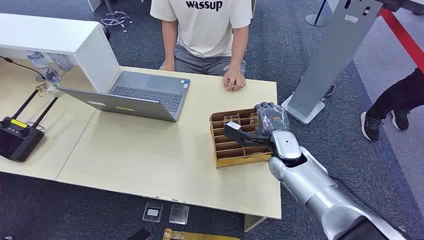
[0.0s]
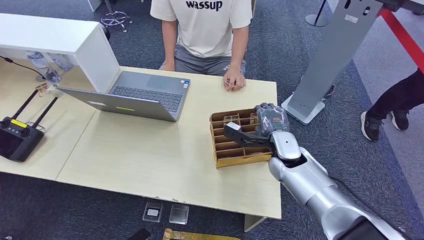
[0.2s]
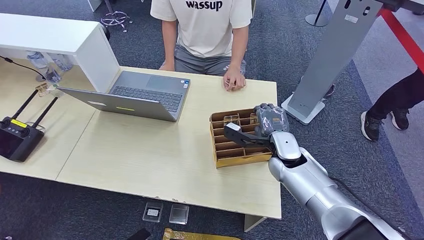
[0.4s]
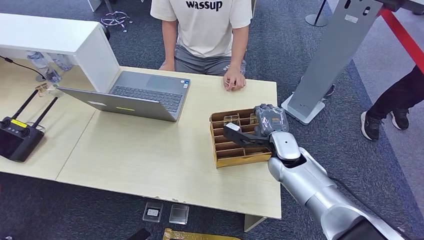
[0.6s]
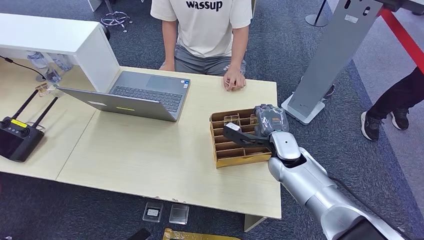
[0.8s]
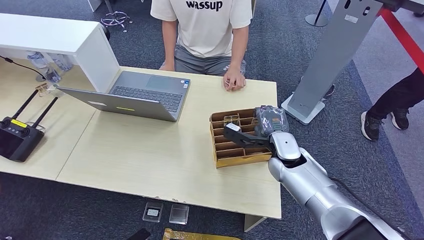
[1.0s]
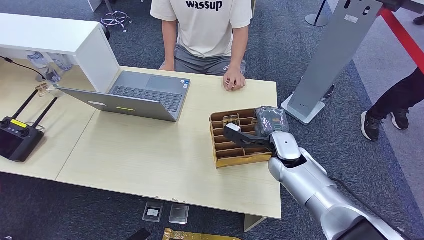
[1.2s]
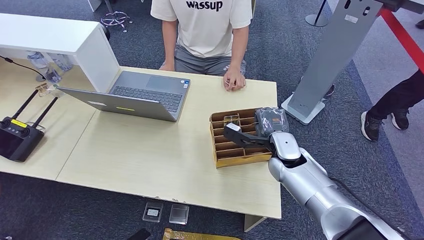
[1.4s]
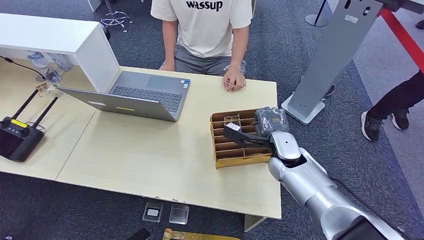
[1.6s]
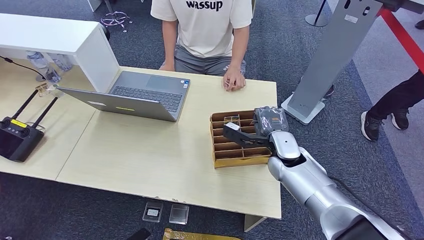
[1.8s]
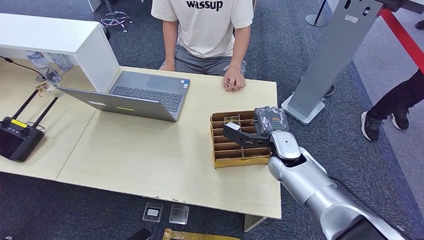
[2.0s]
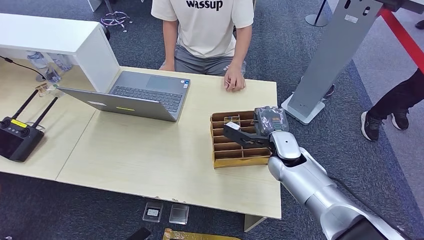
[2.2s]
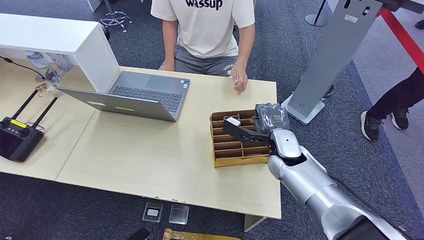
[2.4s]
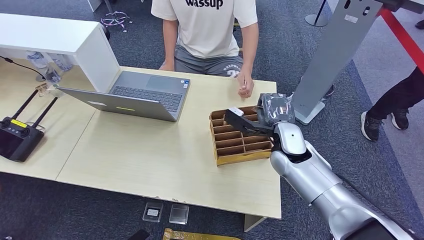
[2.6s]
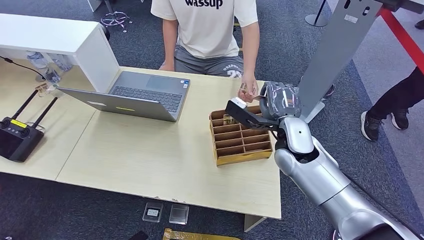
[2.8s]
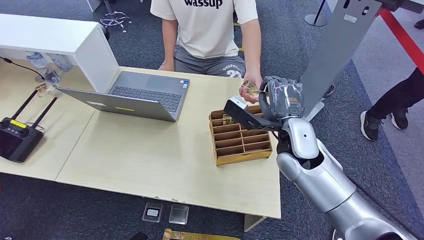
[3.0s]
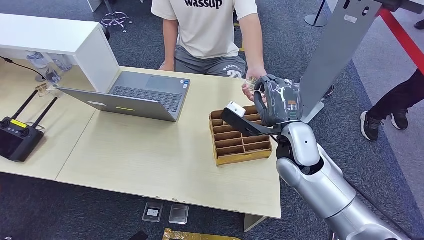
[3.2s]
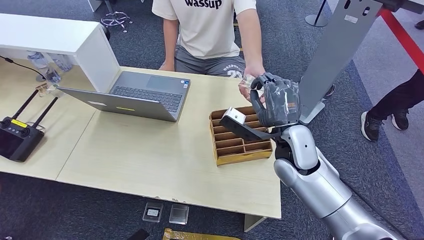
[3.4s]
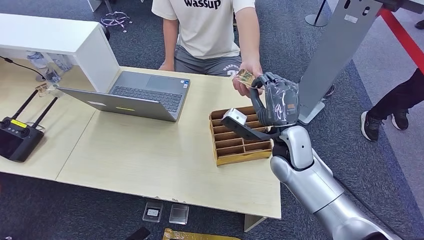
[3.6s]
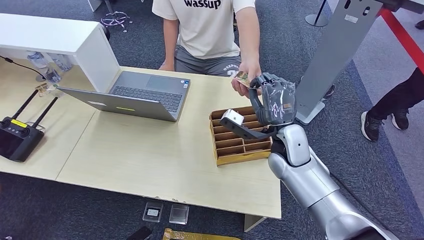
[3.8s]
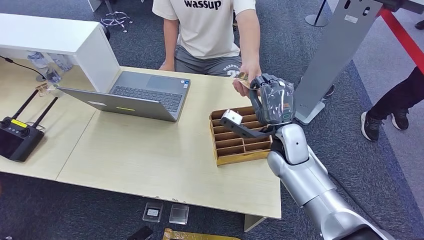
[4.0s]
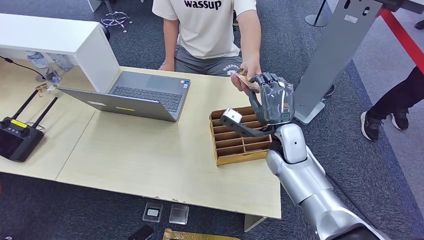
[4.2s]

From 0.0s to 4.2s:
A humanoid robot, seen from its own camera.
Step, from 0.0s to 2.6s: Pick up the room card from the card holder.
Step, from 3.2s to 4.2s: Hand the room card to the target.
From 1.4s to 2.8s: The right hand travels upward by roughly 5 cm.

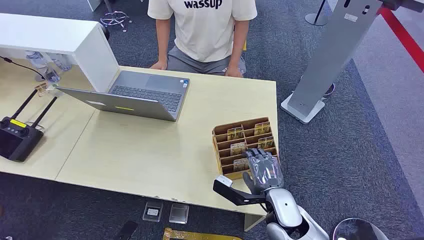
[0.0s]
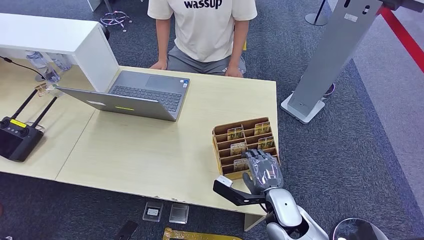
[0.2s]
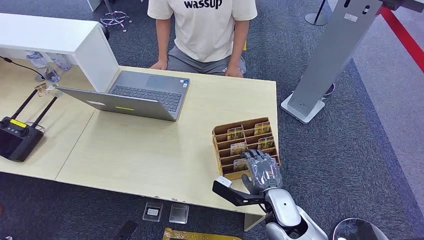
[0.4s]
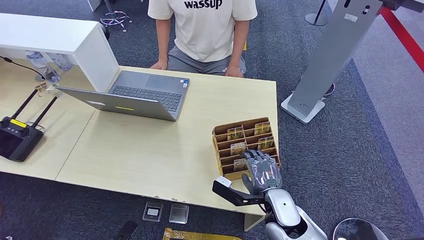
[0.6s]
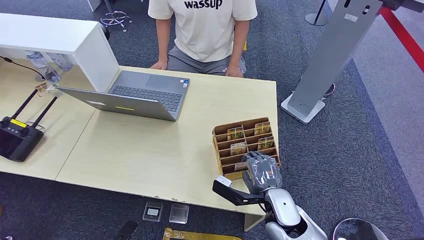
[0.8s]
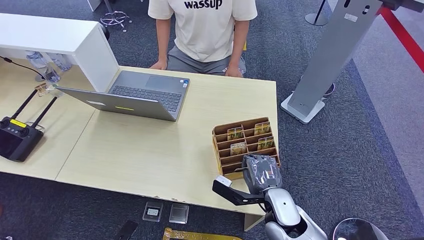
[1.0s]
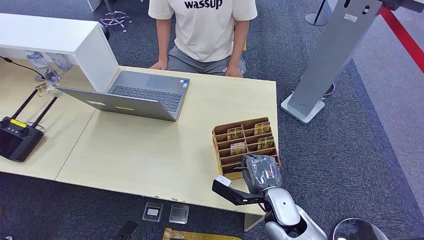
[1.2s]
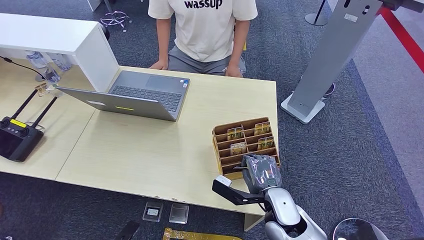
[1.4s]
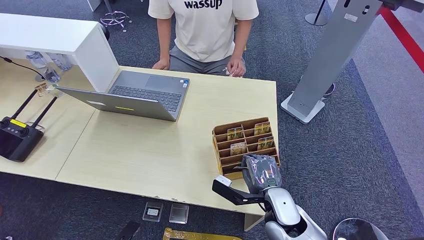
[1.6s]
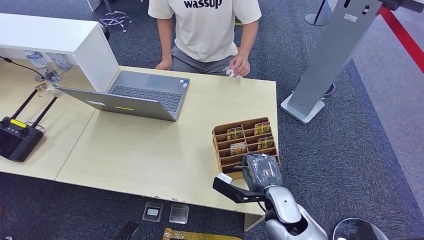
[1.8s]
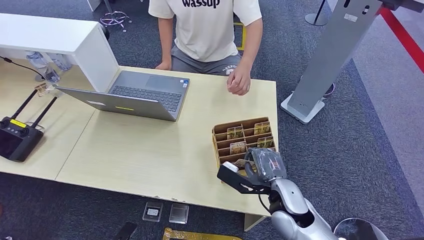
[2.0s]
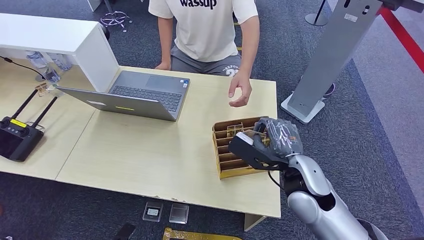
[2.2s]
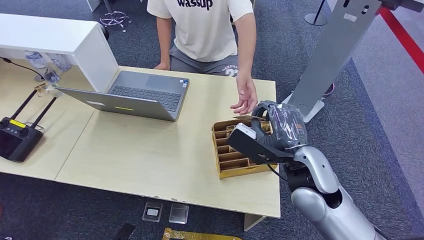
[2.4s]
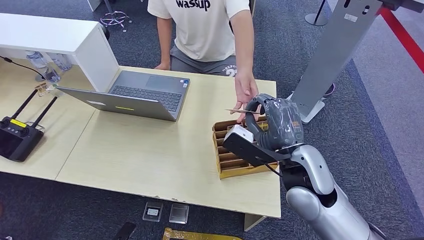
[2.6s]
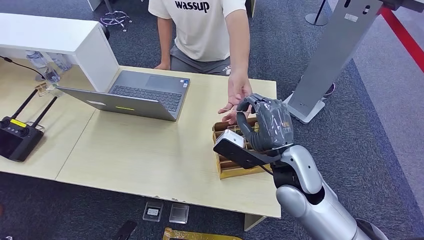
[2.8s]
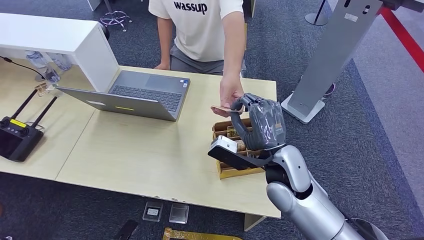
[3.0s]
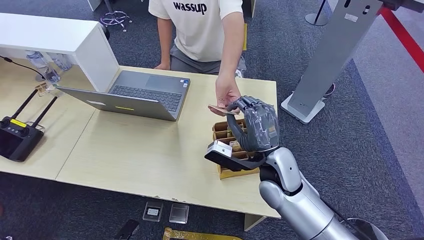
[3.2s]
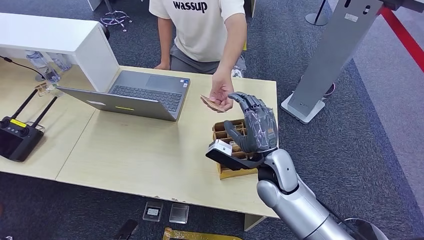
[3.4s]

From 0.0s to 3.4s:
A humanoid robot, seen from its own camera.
Step, from 0.0s to 2.0s: Pick up the room card from the card holder.
Step, from 2.4s to 3.4s: Hand the room card to the target.
From 1.6s to 3.4s: The right hand heads upward and forward, covering some 10 cm.
